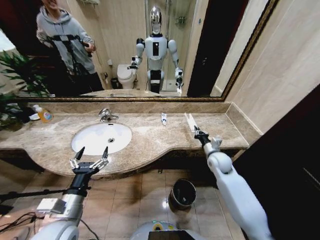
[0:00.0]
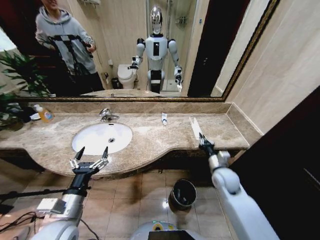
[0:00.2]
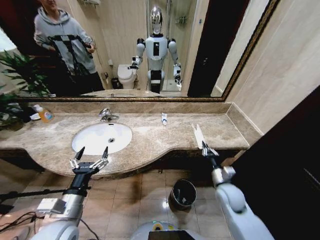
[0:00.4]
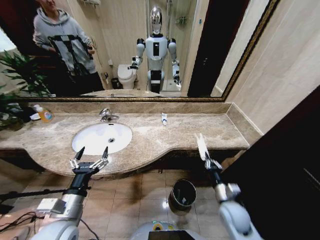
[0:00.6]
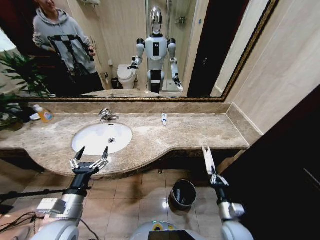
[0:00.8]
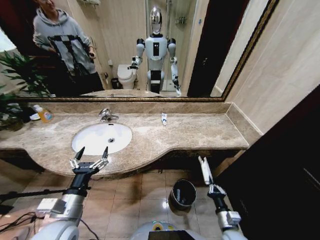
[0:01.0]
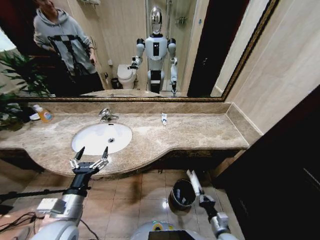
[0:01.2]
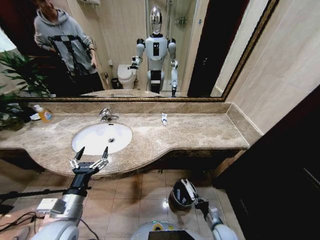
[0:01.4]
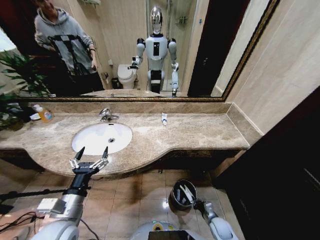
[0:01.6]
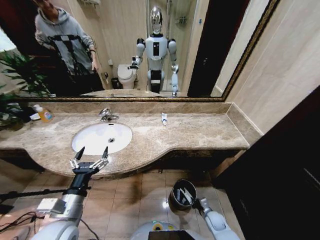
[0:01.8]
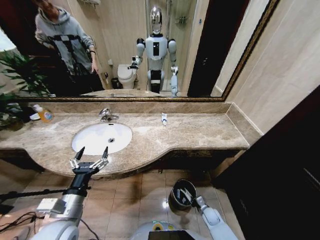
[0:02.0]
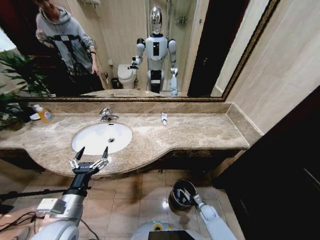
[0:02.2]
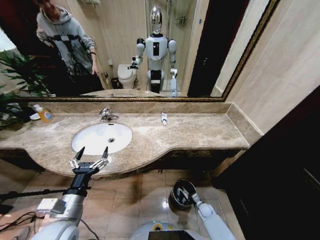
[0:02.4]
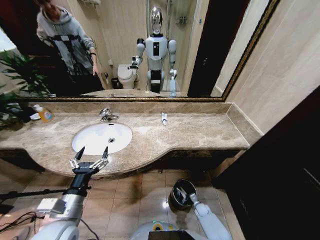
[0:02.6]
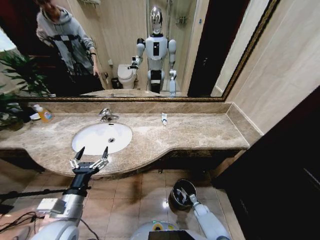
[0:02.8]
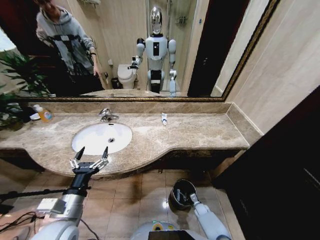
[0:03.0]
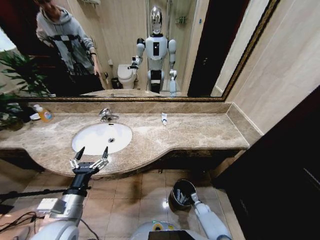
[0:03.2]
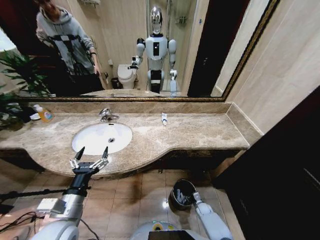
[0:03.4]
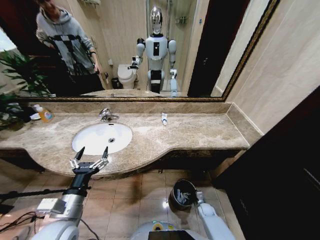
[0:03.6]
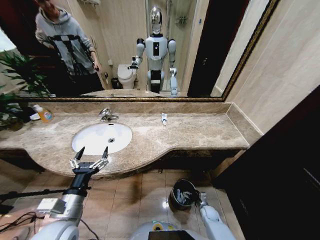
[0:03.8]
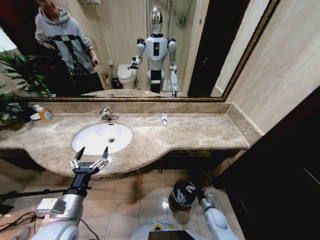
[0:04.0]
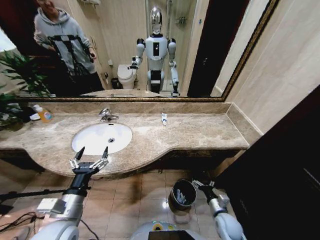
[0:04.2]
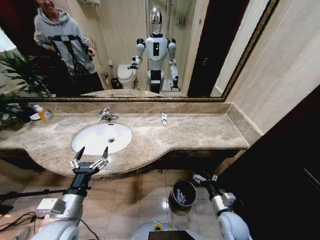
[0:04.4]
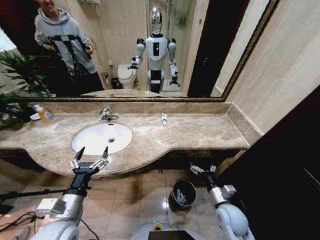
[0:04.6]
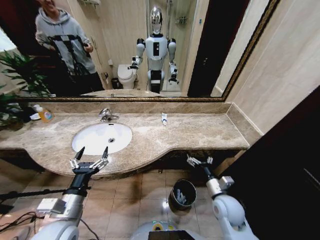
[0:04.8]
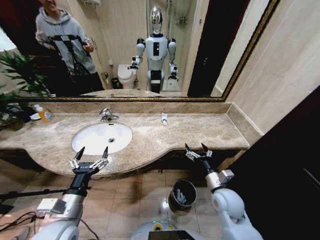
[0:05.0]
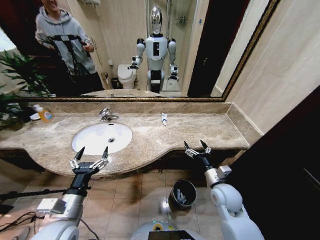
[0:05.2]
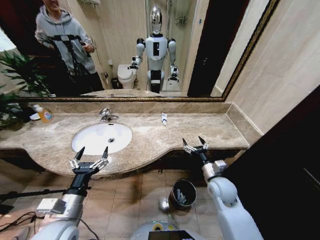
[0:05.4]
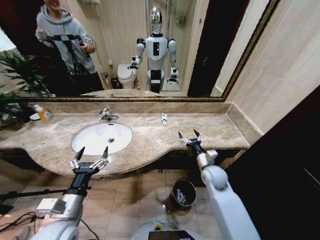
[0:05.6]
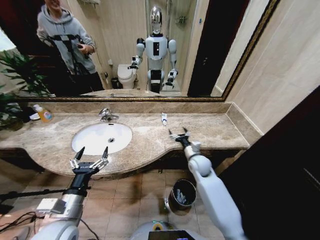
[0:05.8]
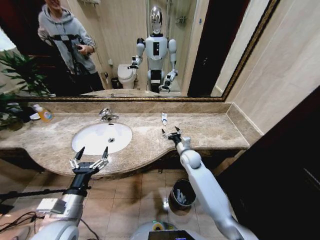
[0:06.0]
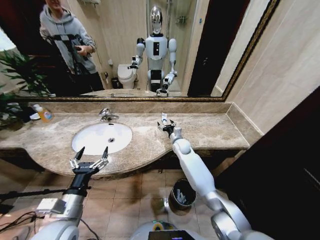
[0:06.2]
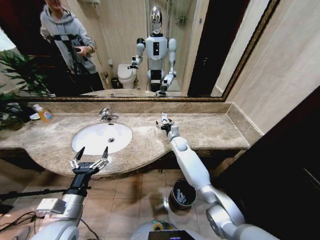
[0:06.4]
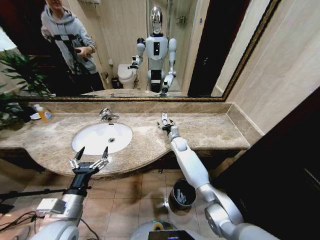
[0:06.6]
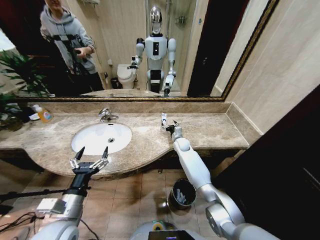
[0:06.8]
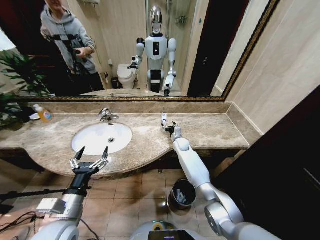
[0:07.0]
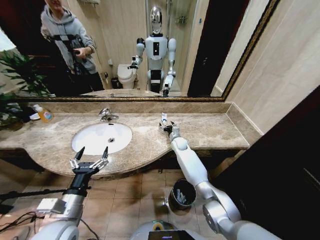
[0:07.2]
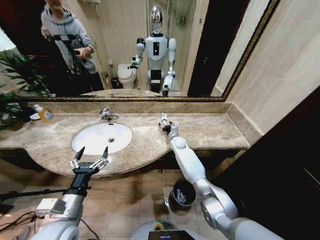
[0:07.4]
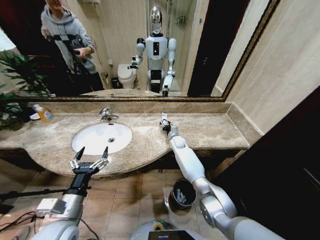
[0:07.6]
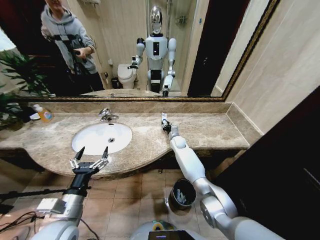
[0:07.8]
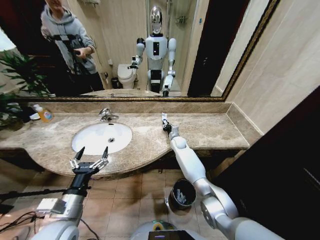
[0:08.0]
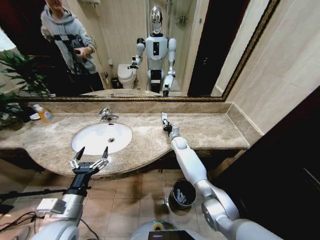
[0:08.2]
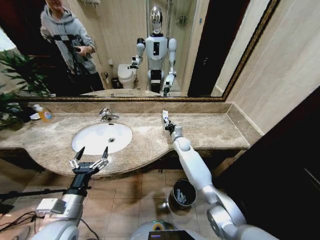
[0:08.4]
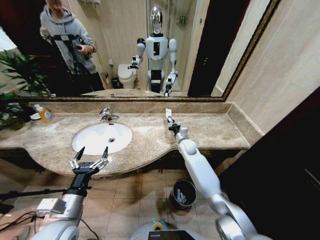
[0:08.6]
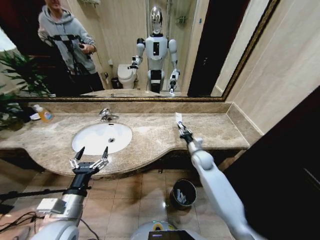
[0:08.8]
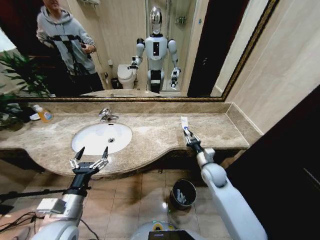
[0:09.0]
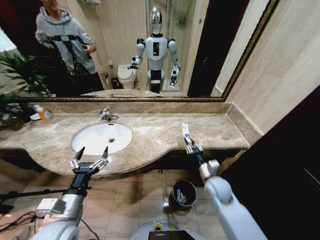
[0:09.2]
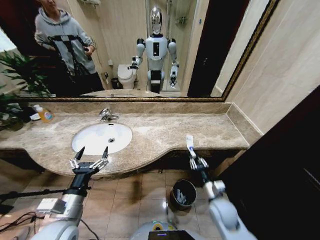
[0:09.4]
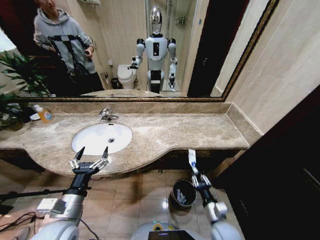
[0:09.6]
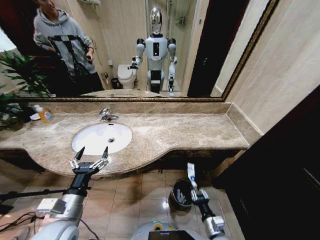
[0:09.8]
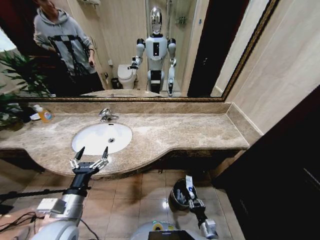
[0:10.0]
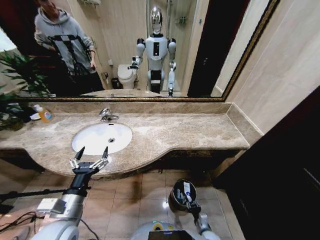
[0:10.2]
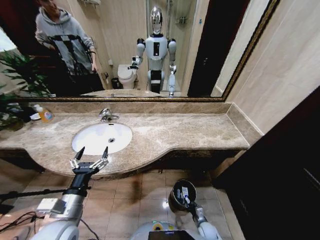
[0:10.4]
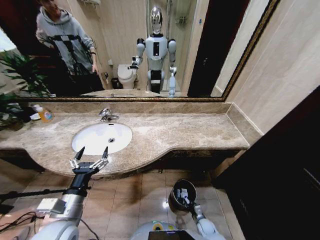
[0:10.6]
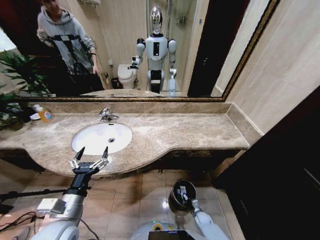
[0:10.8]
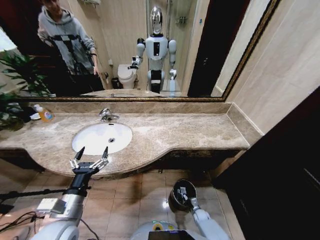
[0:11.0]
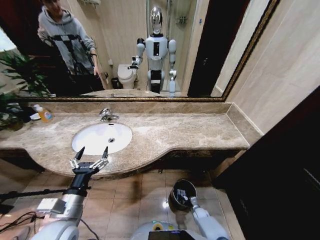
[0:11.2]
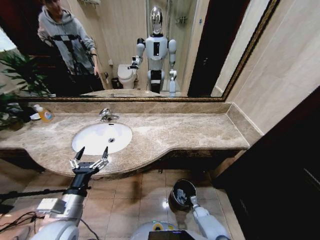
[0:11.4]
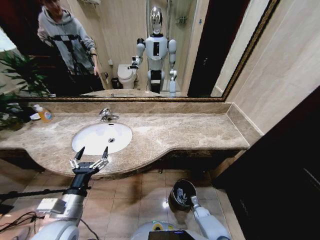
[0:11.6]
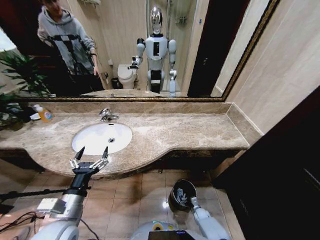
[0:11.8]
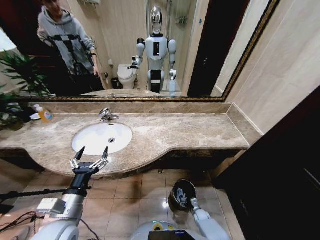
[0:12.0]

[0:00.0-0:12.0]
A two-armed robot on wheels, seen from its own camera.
Task of the whole recording: Pick up the trash from the sink and place it in the trash bin.
0:00.0 to 0:01.6: The right gripper heads downward and backward, covering about 35 cm.
0:01.6 to 0:03.0: The right gripper goes some 15 cm downward and forward.
0:03.0 to 0:04.4: The right gripper heads upward, covering approximately 30 cm, and opens its fingers.
0:04.4 to 0:06.0: The right gripper heads forward and to the left, covering roughly 30 cm.
0:06.0 to 0:07.6: The right gripper heads forward, covering some 15 cm.
0:07.6 to 0:09.0: The right gripper travels backward and to the right by approximately 25 cm, and closes up.
0:09.0 to 0:10.4: The right gripper is displaced downward and backward by roughly 35 cm.
0:10.4 to 0:12.0: The right gripper is displaced downward and forward by approximately 10 cm, and opens its fingers.

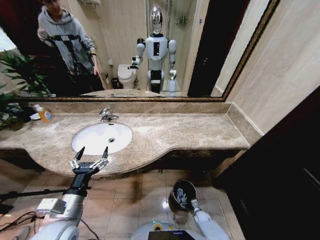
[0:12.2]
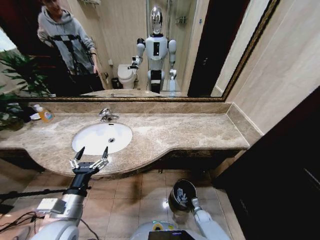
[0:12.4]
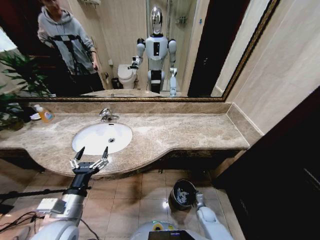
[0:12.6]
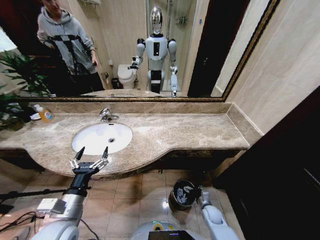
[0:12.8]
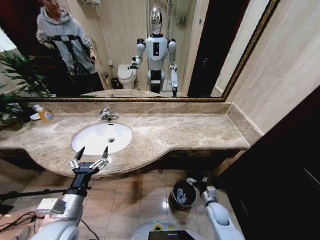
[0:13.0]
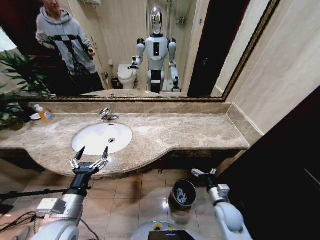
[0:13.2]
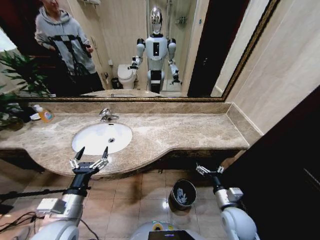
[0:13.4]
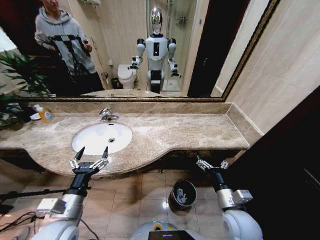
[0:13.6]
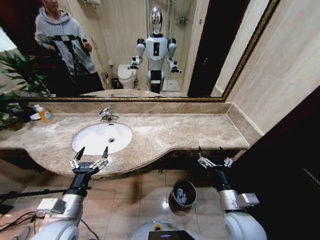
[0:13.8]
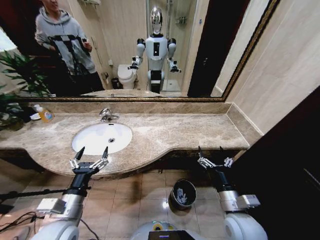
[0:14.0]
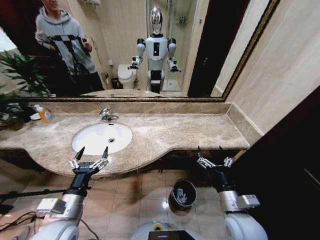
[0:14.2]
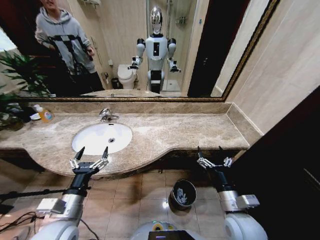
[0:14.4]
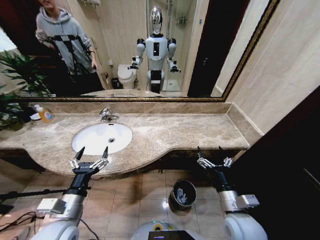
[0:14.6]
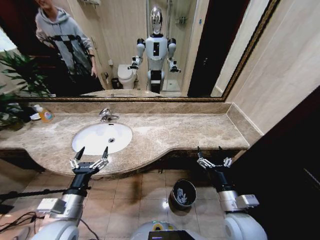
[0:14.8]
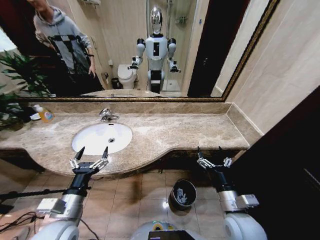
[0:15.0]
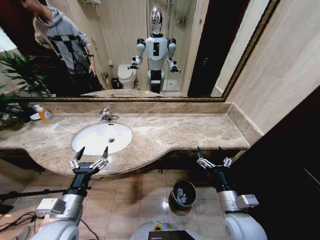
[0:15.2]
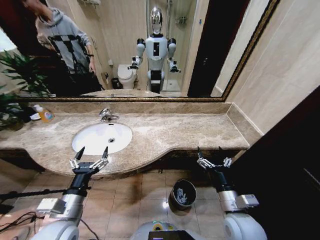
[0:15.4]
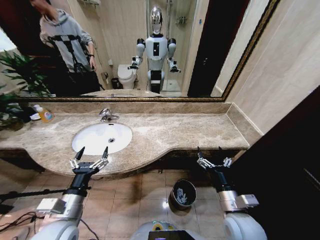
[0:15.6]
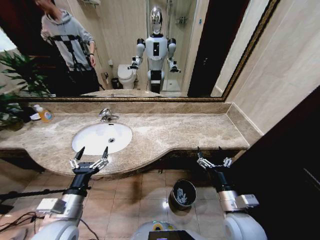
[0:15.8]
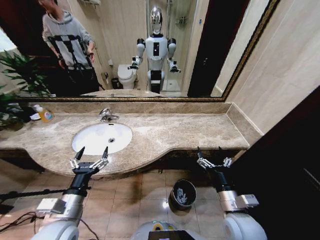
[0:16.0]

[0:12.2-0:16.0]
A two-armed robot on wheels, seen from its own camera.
Task of the whole recording: Pick up the trash from the sink and place it in the trash bin.
0:12.2 to 0:13.4: The right gripper goes approximately 35 cm upward.
0:13.4 to 0:14.8: The right gripper moves upward, about 5 cm.
0:14.8 to 0:16.0: Both grippers stay about where they are.

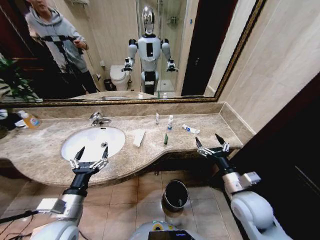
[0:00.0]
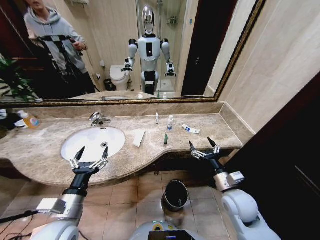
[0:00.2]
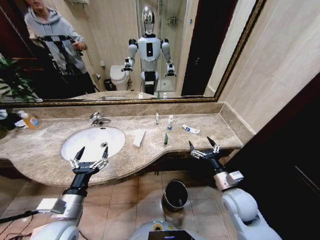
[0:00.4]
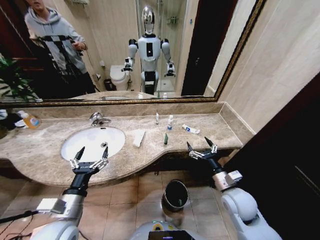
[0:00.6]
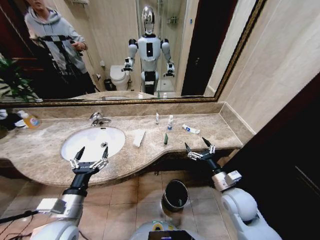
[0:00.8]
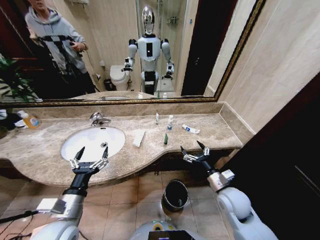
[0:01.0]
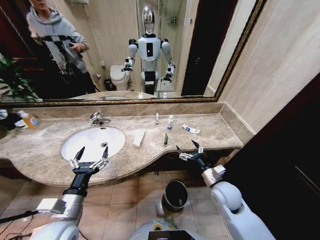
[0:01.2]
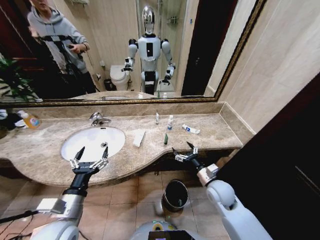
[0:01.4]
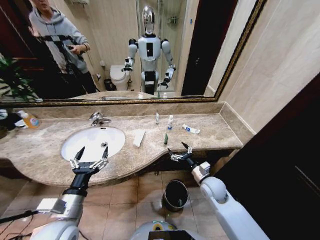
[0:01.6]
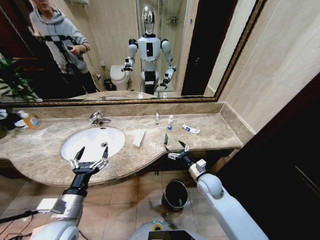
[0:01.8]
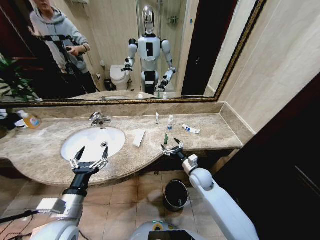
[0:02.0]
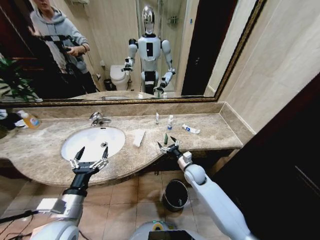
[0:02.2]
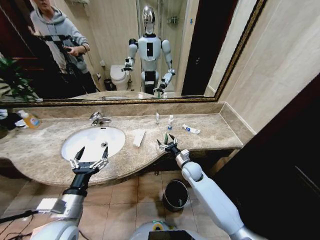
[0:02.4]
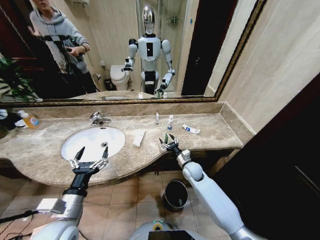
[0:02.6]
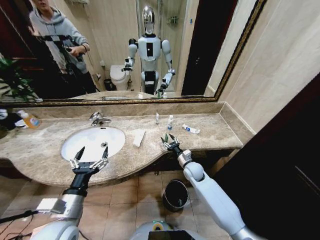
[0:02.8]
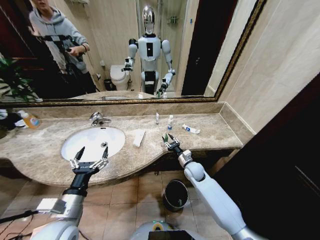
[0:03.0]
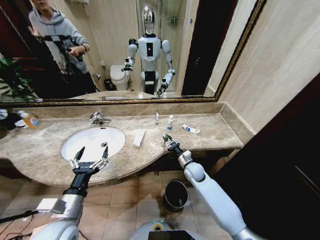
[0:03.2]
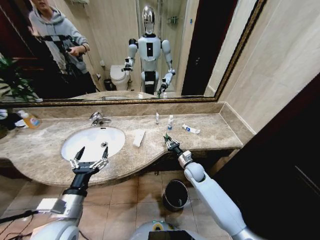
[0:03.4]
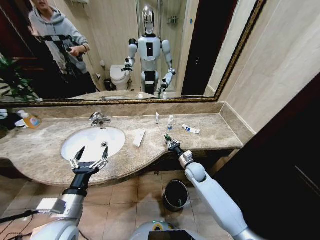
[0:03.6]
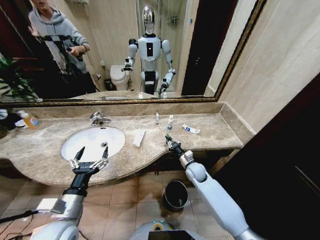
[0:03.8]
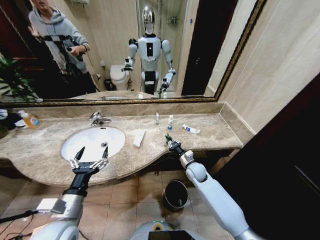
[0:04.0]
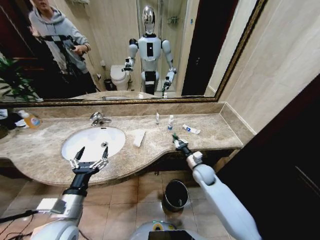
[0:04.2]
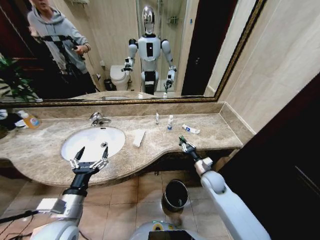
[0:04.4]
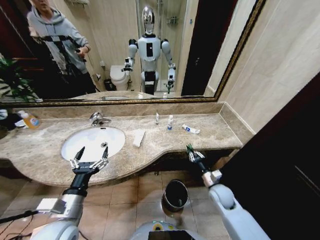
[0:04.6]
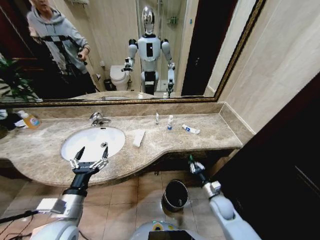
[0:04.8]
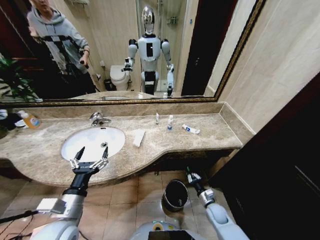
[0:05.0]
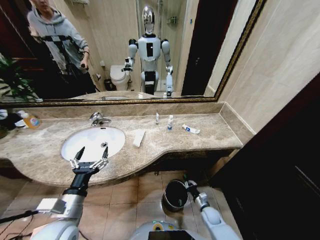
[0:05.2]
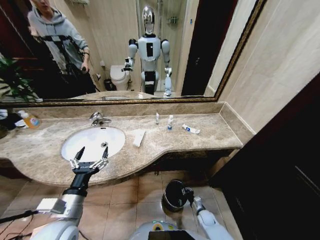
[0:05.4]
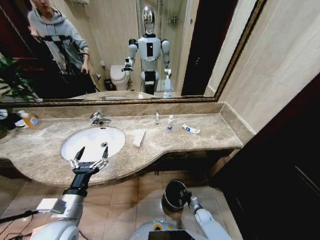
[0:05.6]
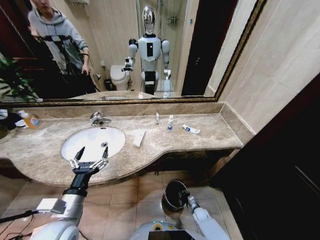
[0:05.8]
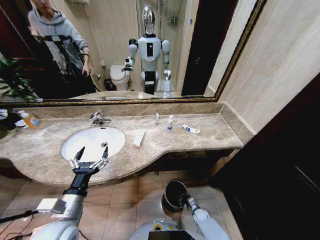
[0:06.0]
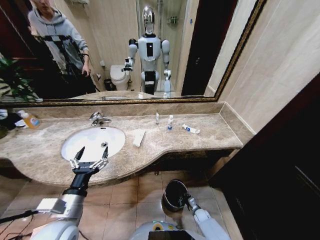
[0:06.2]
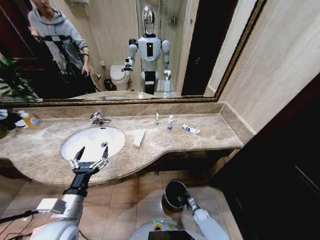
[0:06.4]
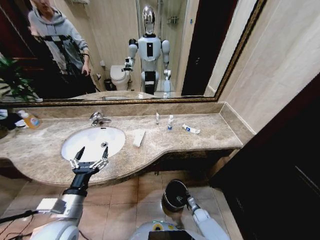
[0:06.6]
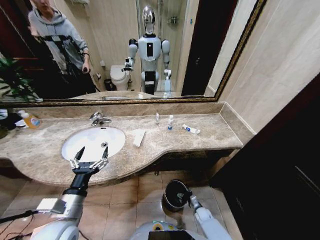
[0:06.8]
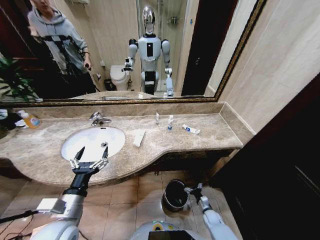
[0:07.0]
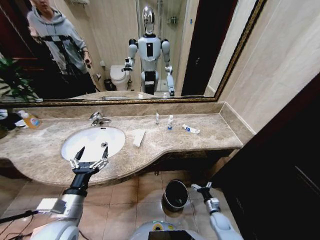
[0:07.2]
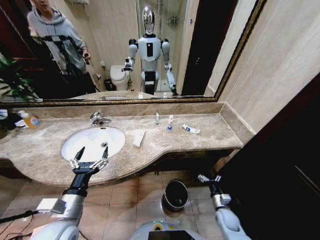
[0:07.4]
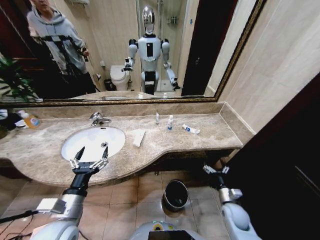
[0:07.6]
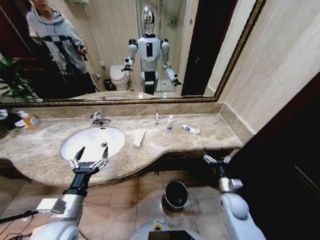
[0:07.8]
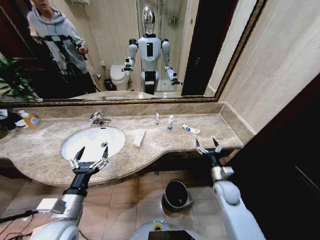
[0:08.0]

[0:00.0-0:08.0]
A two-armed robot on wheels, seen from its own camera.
Task of the whole recording: Pick up the trash from the sink and place it in the trash bin.
0:01.6 to 0:03.2: The right gripper moves forward, some 10 cm, and closes its fingers.
0:03.2 to 0:04.8: The right gripper travels backward, to the right and downward by approximately 20 cm.
0:04.8 to 0:06.4: The right gripper heads downward, covering about 25 cm.
0:06.4 to 0:08.0: The right gripper travels upward by roughly 30 cm, and opens.
